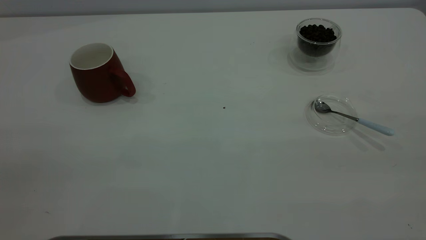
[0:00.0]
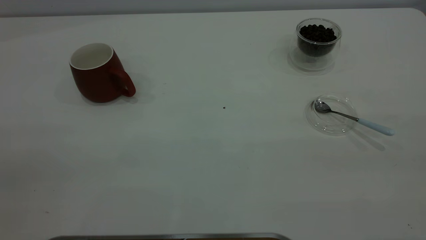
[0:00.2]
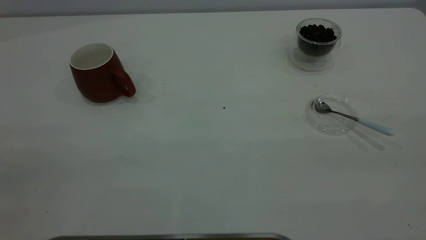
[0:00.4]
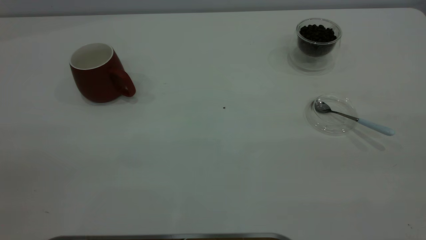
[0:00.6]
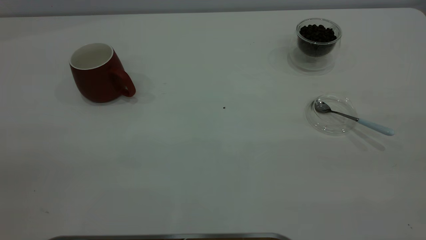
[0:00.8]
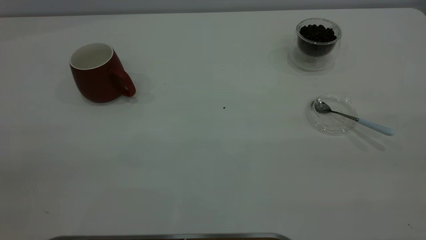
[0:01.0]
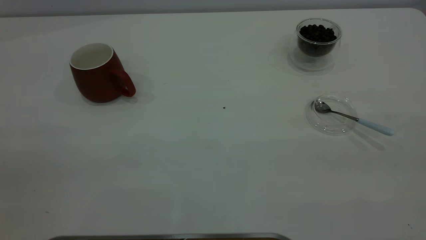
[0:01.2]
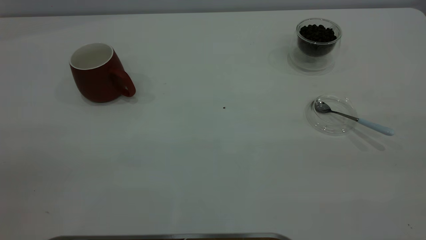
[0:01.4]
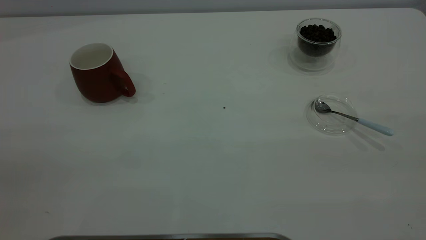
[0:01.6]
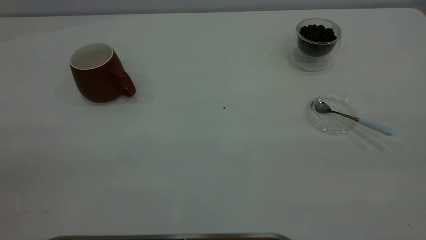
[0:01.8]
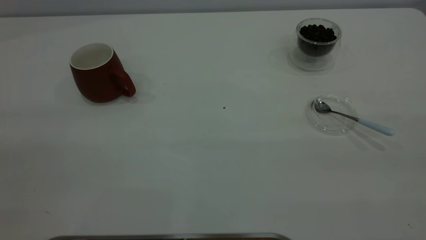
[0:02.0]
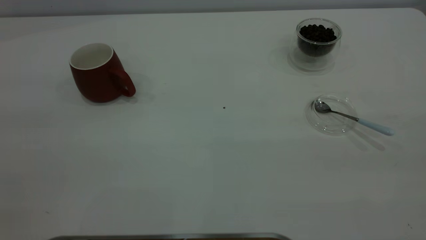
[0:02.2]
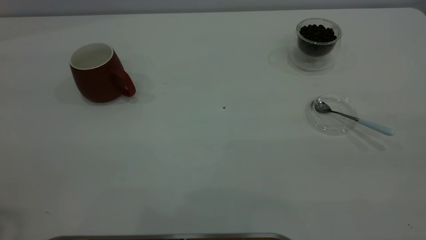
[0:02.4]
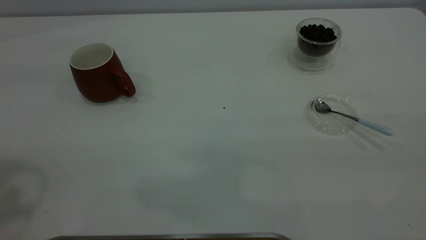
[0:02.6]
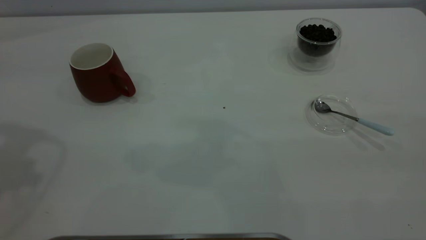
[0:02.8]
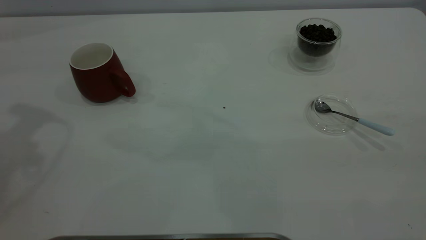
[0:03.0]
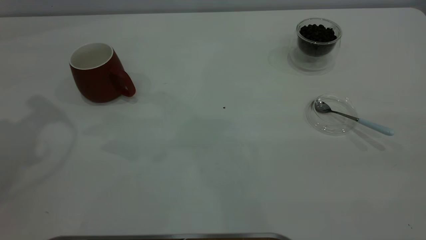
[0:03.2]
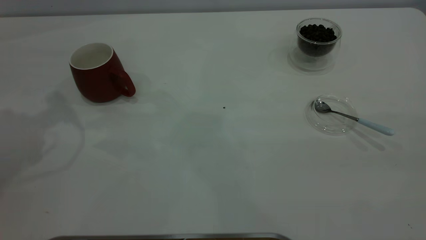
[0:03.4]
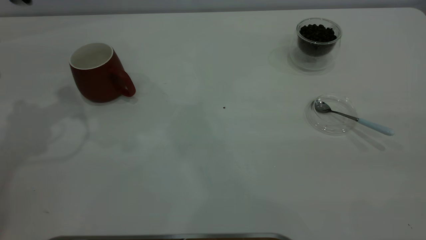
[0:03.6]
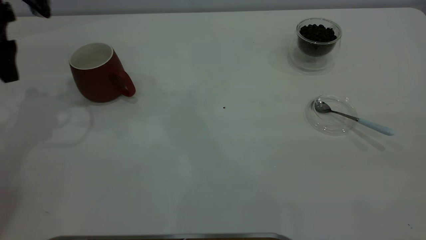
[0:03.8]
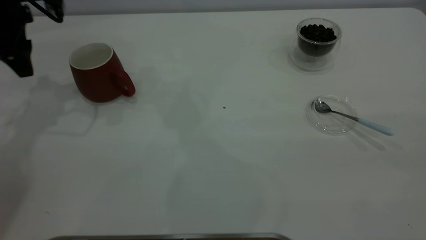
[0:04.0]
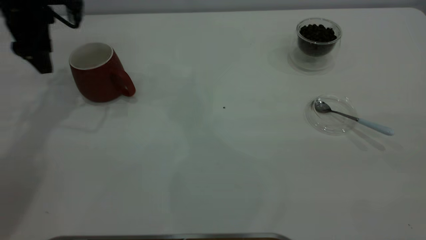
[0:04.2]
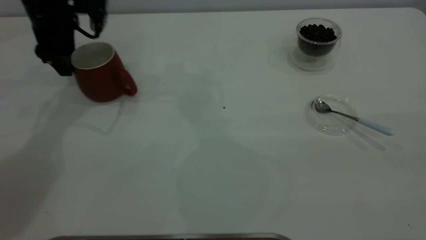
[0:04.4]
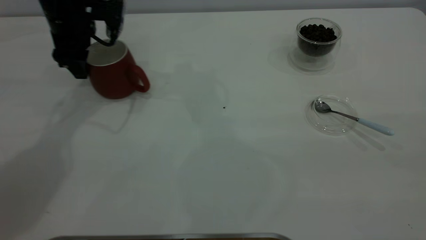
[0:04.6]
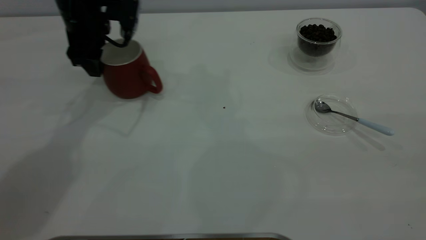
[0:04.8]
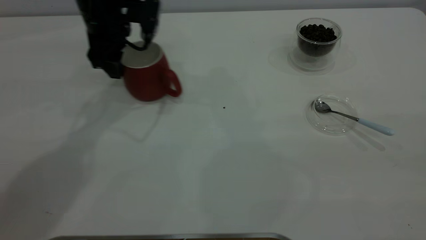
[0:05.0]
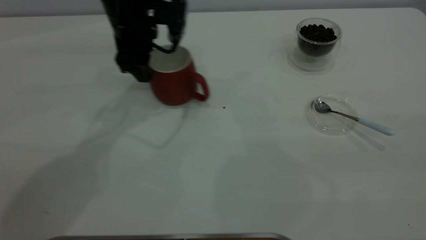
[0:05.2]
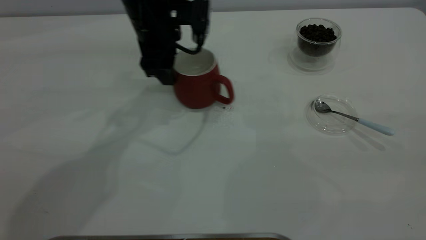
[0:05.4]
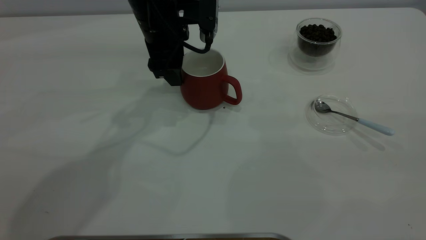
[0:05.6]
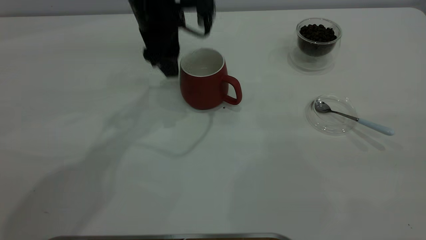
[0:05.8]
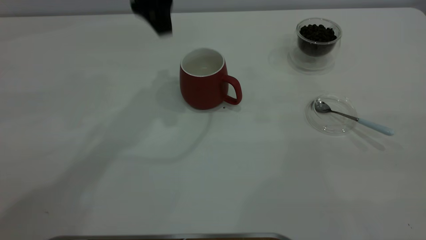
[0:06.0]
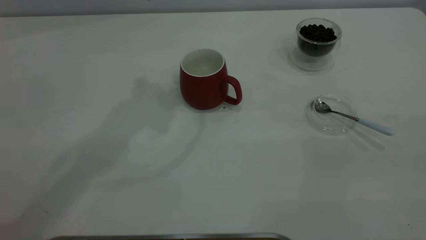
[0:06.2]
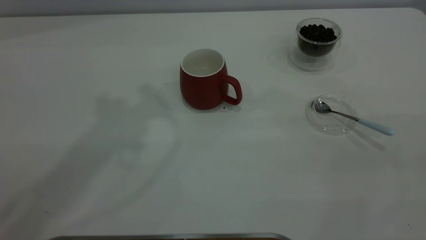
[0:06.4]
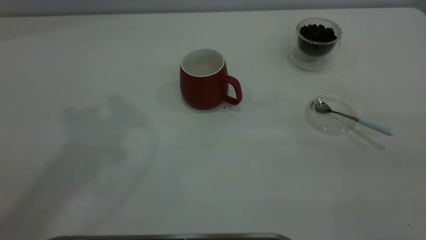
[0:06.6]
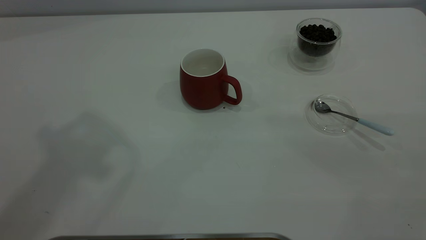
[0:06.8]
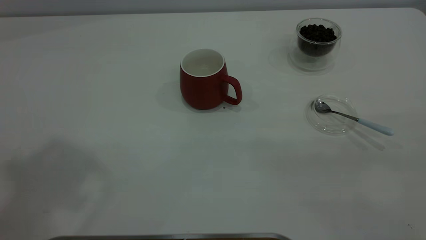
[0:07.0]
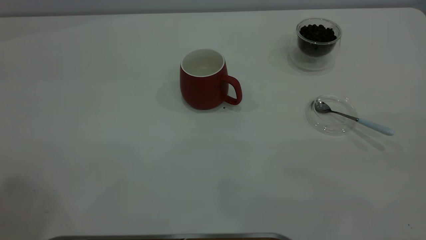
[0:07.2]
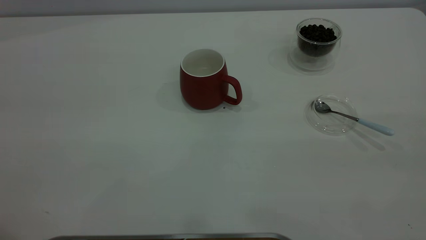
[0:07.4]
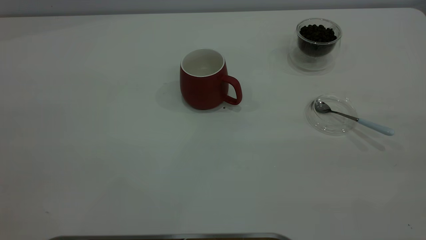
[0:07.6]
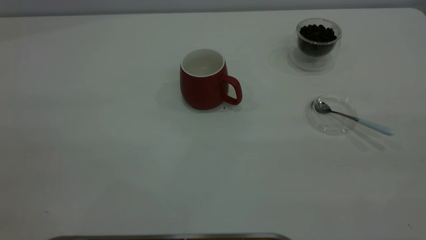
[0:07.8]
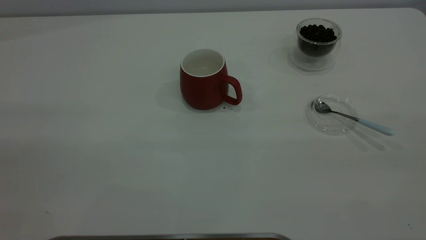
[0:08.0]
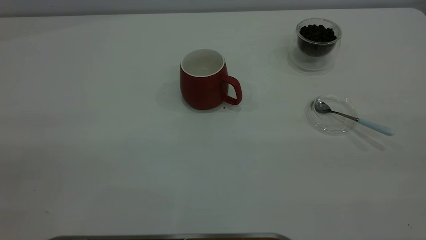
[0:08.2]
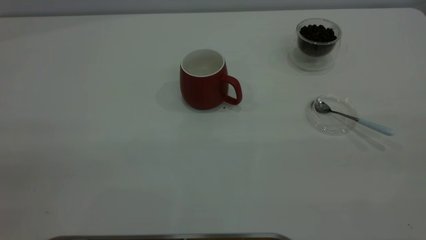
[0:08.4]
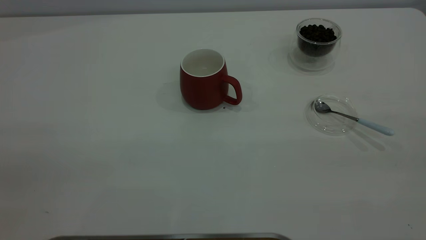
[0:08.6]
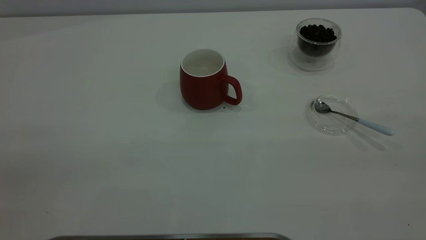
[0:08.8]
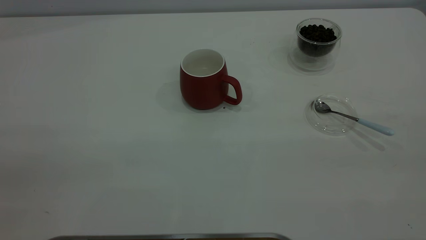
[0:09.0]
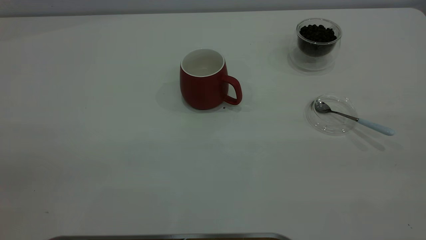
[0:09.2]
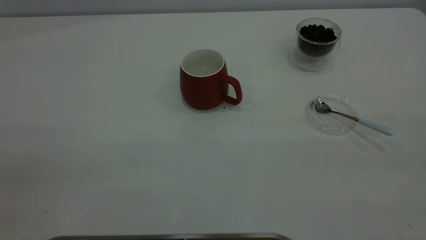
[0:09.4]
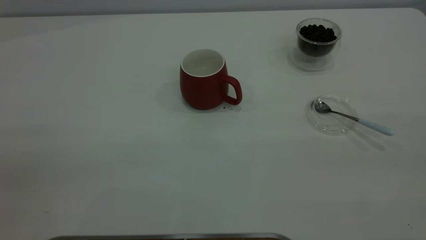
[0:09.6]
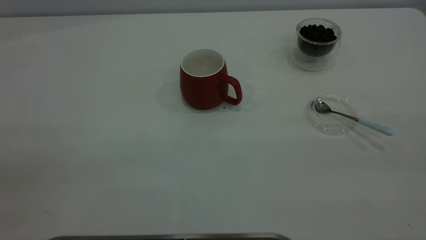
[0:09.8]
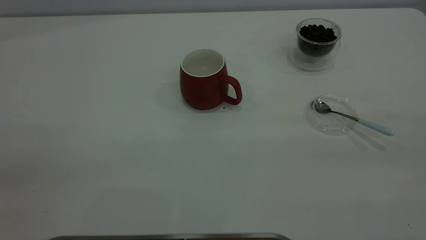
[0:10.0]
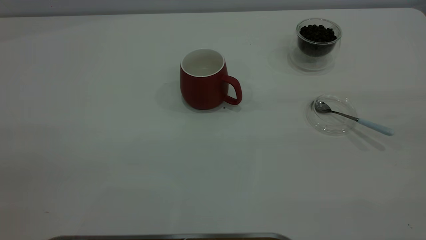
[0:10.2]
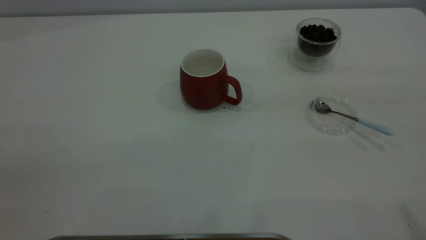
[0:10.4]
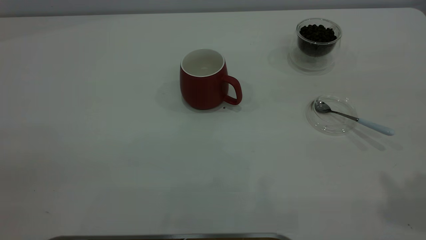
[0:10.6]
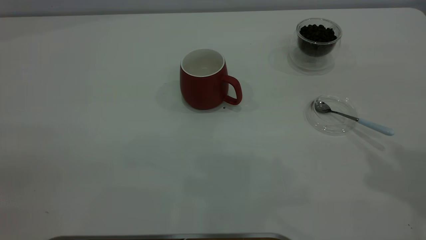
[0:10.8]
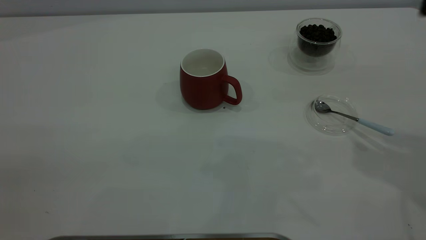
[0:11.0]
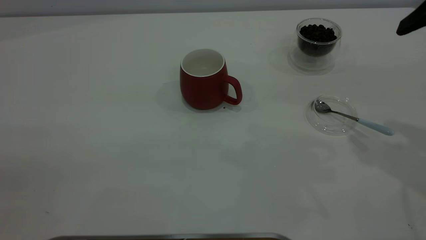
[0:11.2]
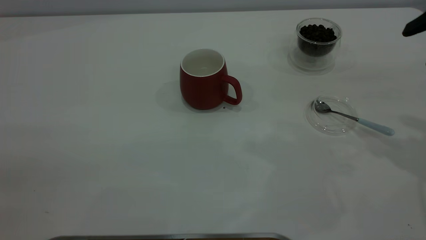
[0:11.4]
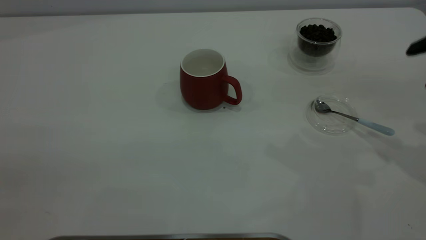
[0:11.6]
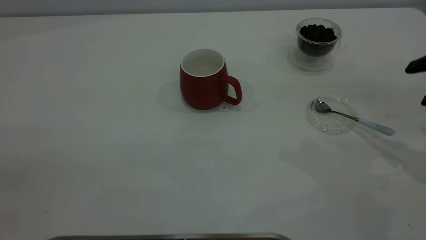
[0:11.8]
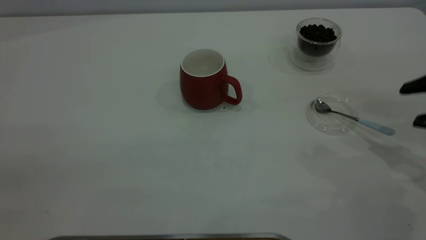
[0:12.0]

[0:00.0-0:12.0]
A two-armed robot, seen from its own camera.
Task of the whole recording: the left gripper place the red cup in the center of the table, the right gripper take the blue spoon from the cup lid and scoop out the coffee beans from the coffee cup and put them into the red cup, the right gripper put the spoon back into the cup lid.
Step, 0:00.0 to 0:05.8: Move the cup to the center of view.
0:00.0 to 0:01.6: The two grippers keep their place.
0:03.0 to 0:04.4: The left gripper heads downward and forward, covering roughly 25 cm.
0:04.4 to 0:06.0: The left gripper moves to the right and upward, roughly 20 cm.
0:06.0 to 0:07.6: The left gripper travels backward, to the left and upward by some 40 cm.
0:10.4 to 0:12.0: The right gripper is displaced downward and forward by approximately 30 cm.

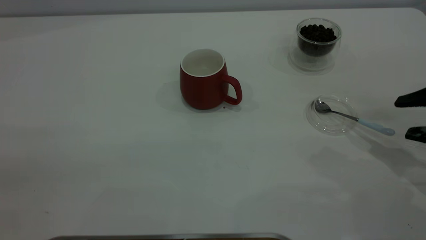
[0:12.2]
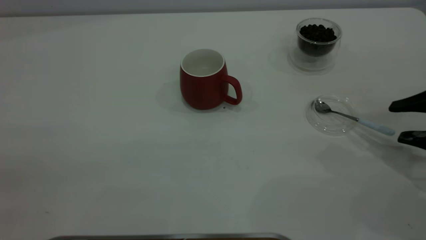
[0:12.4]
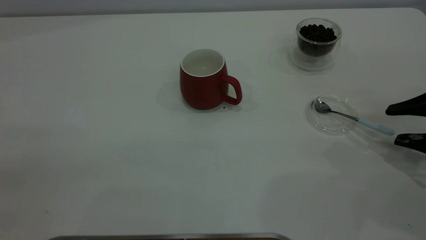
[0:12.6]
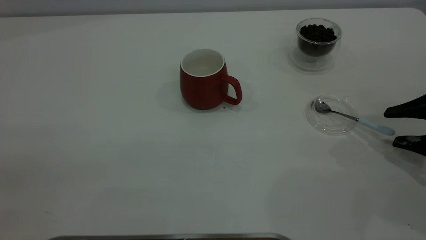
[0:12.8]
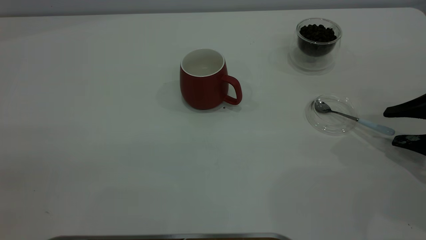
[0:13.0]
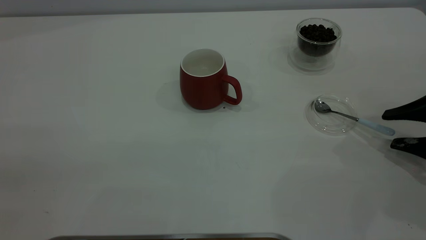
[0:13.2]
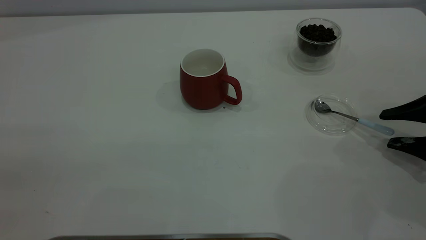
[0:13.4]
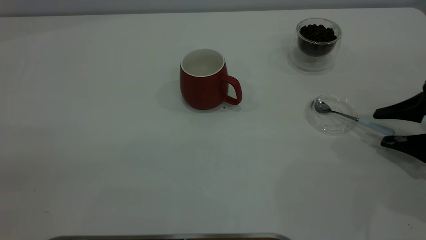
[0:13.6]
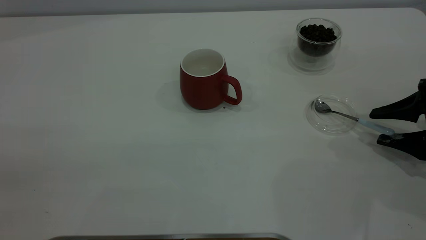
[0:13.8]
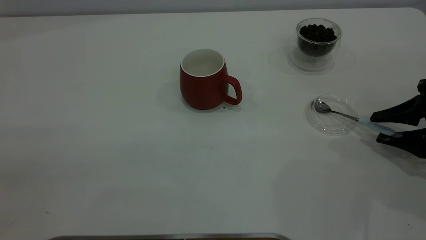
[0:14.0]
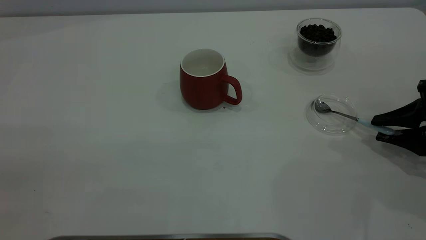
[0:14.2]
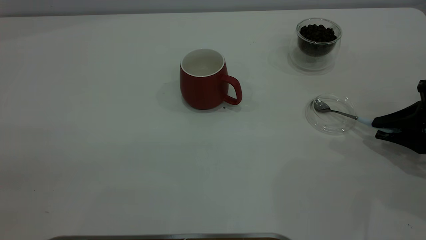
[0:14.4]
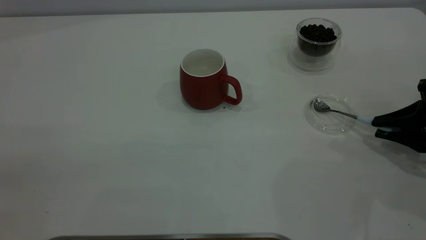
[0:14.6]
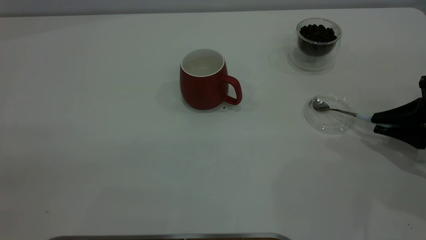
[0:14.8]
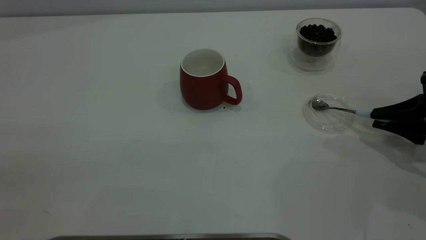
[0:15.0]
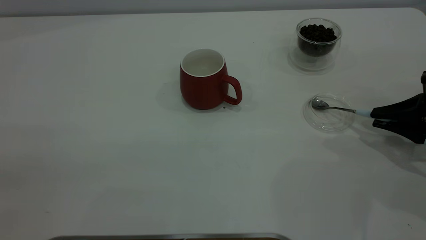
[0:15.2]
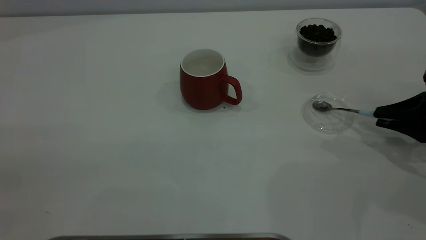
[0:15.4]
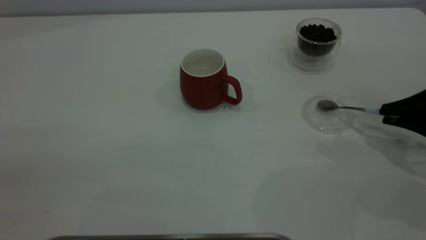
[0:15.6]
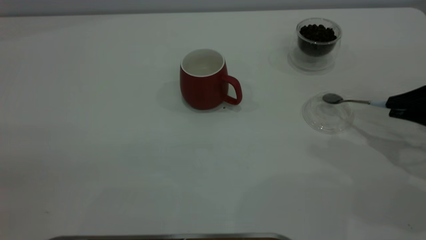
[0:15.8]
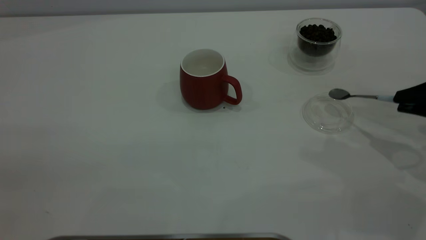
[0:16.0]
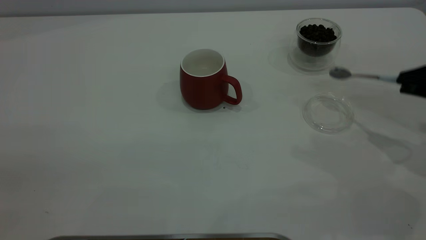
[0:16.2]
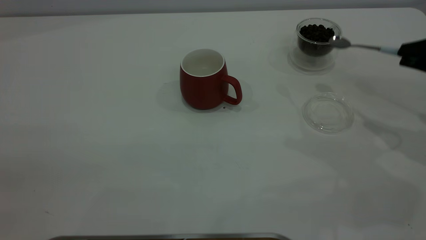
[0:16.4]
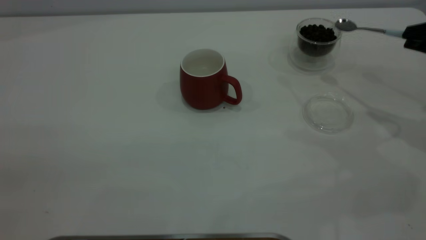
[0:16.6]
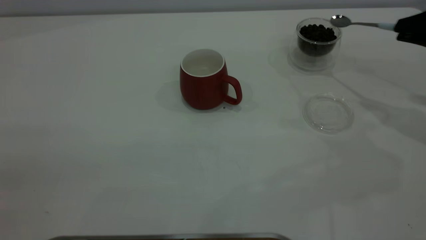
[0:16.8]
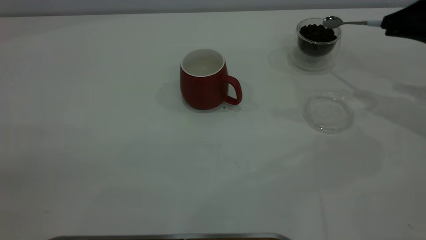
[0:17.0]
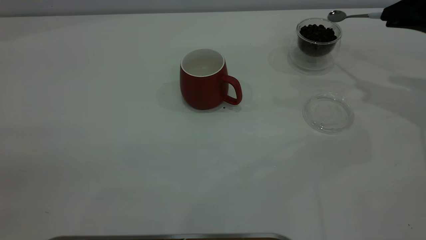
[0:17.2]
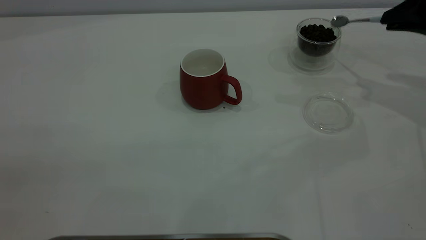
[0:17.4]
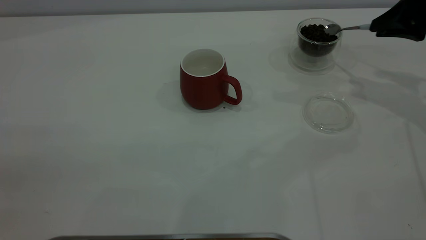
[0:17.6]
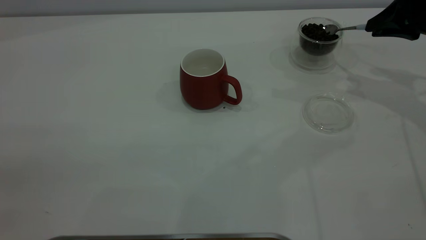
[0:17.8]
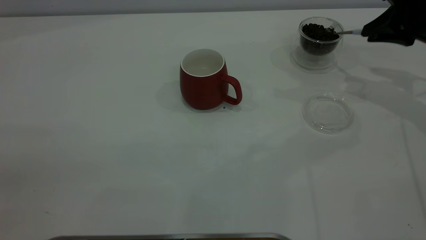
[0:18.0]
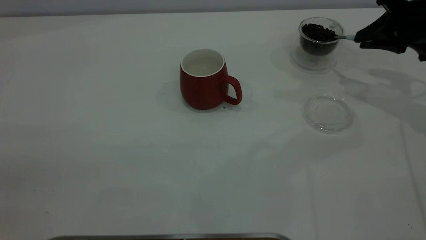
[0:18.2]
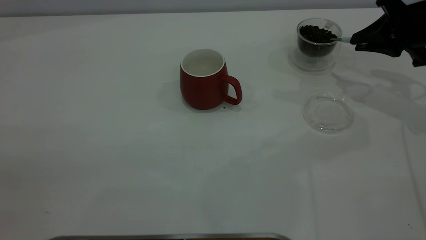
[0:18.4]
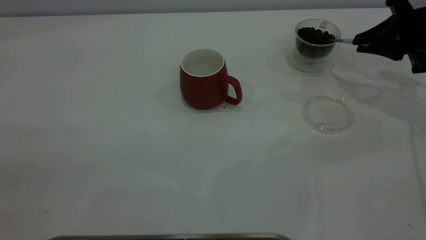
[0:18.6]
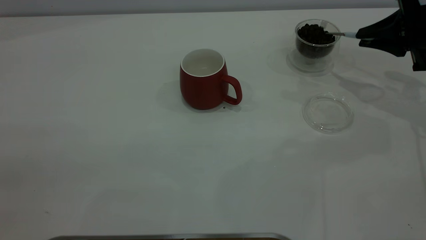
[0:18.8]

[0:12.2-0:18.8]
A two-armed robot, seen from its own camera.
Task of the whole recording: the left gripper place the red cup in the center of the table, the right gripper take the blue spoon from the cup lid and scoop out the coffee beans from the coffee cup and put them into the red cup, the right gripper put the spoon back into the cup lid.
Step, 0:12.2 to 0:15.8: Pick up the spoon.
0:12.2 to 0:13.8: The right gripper heads downward, covering approximately 5 cm.
0:13.8 to 0:15.4: The right gripper closes.
0:15.4 to 0:17.2: The right gripper shifts approximately 15 cm forward and upward.
0:17.2 to 0:18.8: The right gripper travels downward by roughly 5 cm.
